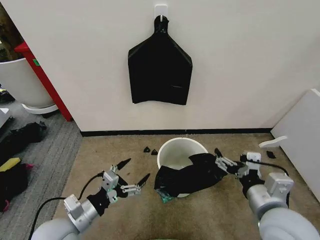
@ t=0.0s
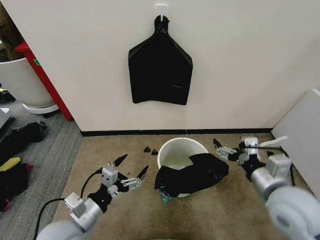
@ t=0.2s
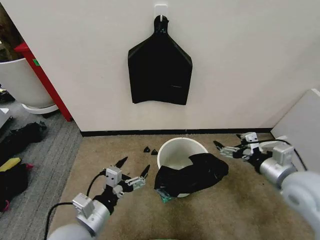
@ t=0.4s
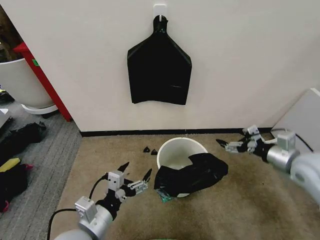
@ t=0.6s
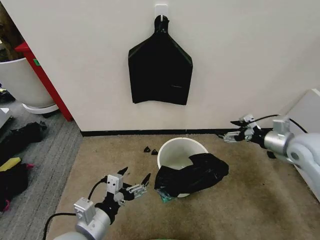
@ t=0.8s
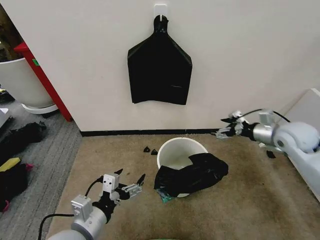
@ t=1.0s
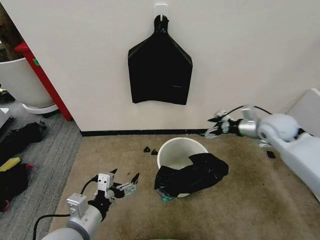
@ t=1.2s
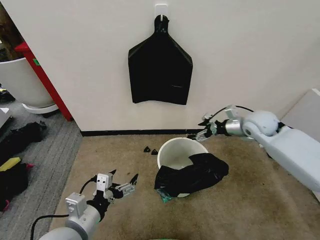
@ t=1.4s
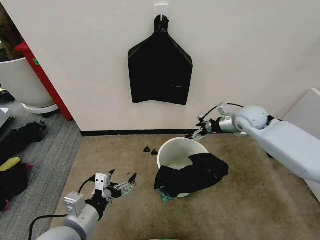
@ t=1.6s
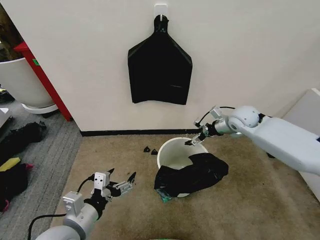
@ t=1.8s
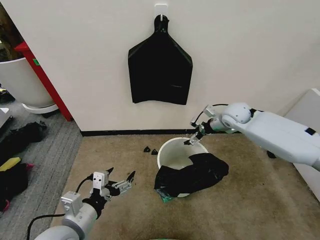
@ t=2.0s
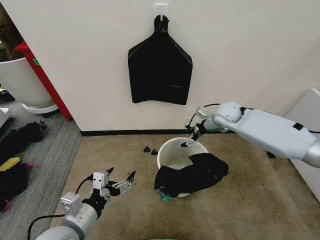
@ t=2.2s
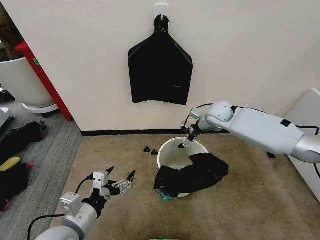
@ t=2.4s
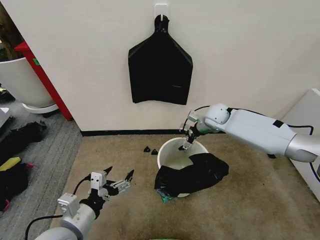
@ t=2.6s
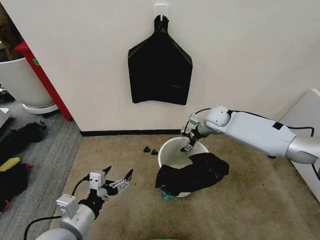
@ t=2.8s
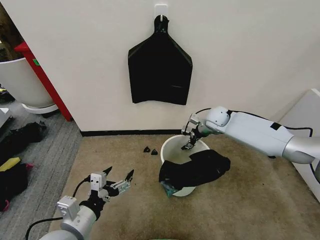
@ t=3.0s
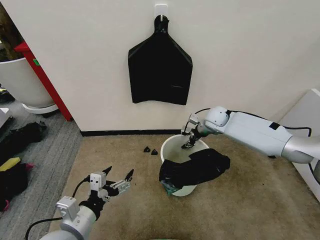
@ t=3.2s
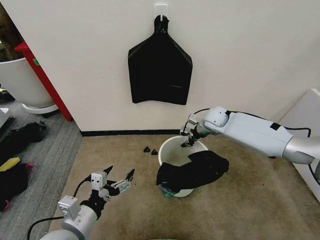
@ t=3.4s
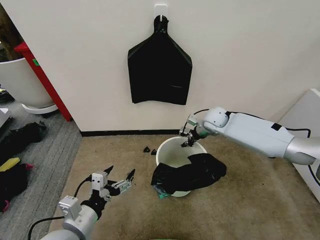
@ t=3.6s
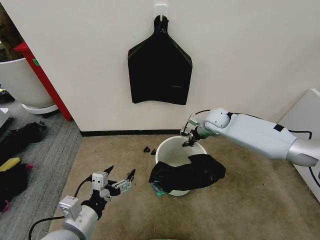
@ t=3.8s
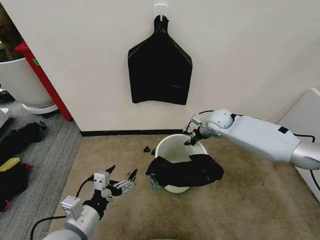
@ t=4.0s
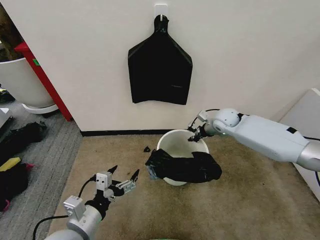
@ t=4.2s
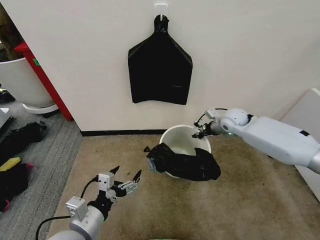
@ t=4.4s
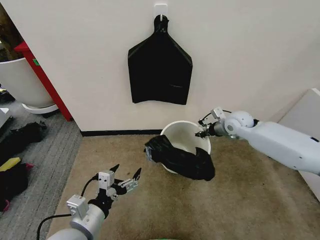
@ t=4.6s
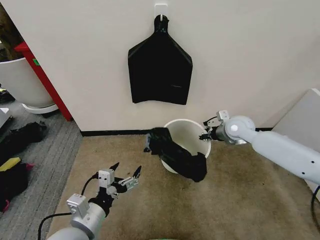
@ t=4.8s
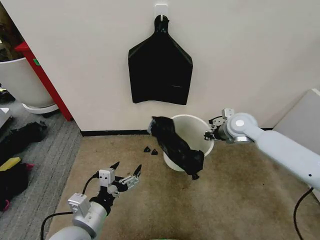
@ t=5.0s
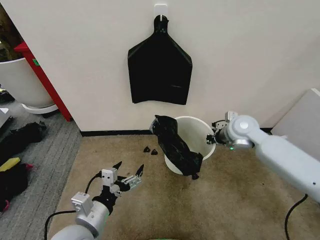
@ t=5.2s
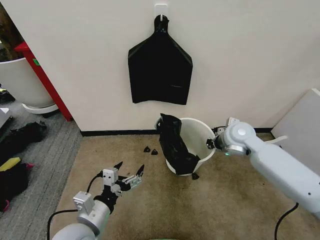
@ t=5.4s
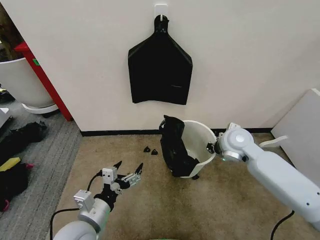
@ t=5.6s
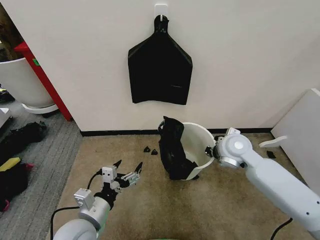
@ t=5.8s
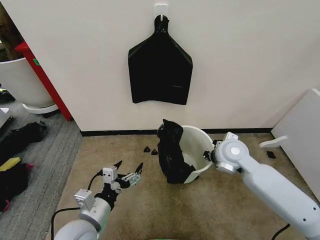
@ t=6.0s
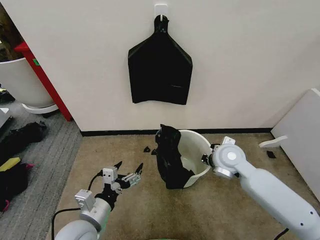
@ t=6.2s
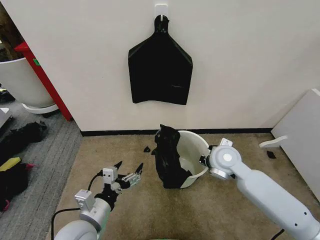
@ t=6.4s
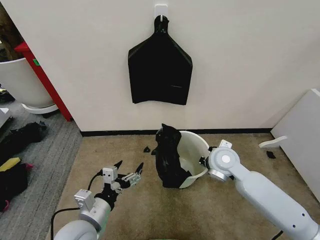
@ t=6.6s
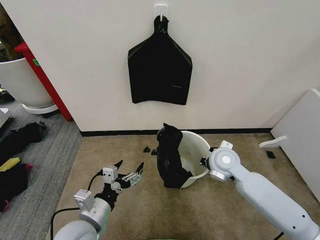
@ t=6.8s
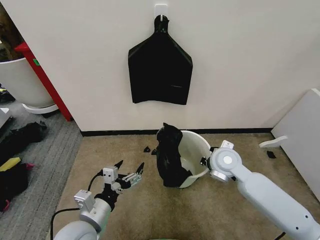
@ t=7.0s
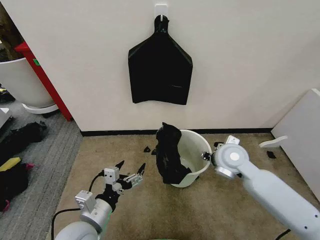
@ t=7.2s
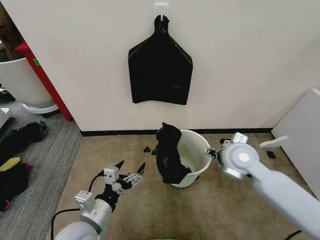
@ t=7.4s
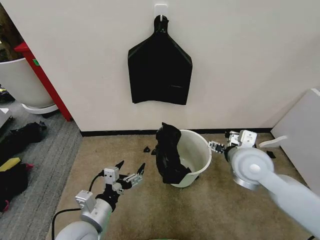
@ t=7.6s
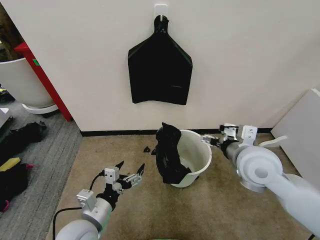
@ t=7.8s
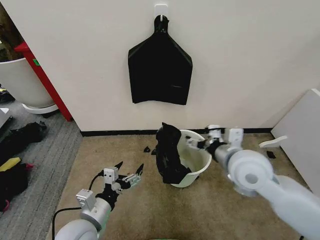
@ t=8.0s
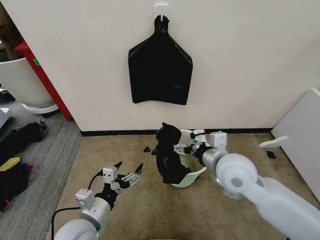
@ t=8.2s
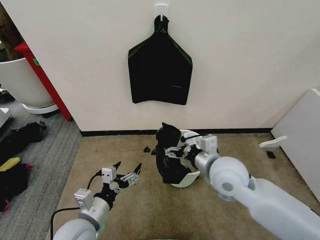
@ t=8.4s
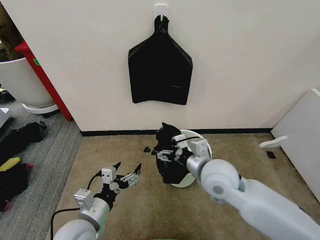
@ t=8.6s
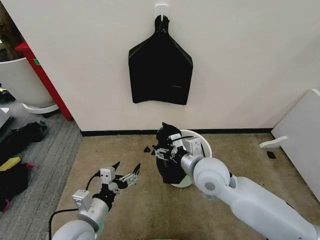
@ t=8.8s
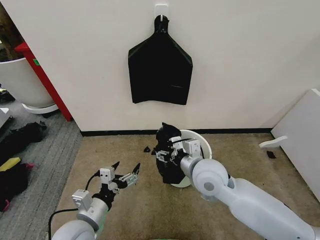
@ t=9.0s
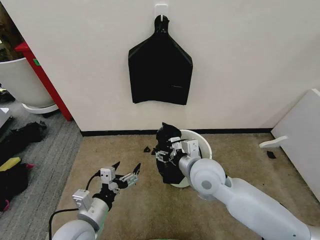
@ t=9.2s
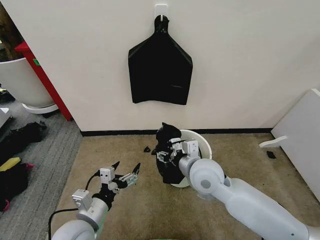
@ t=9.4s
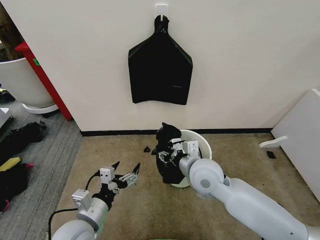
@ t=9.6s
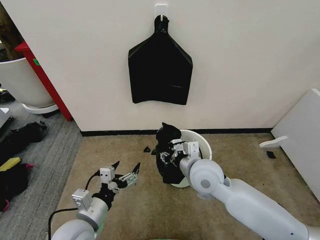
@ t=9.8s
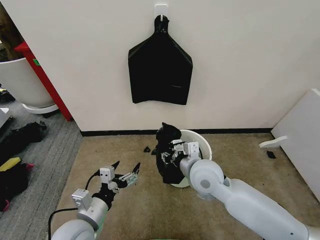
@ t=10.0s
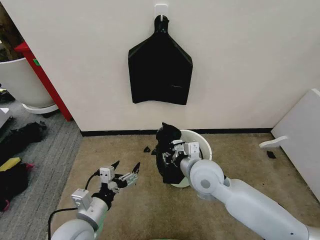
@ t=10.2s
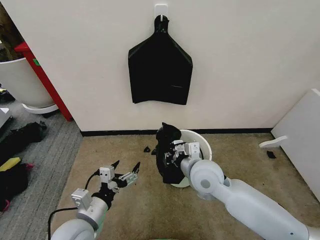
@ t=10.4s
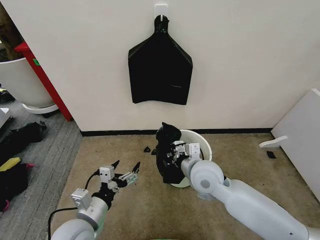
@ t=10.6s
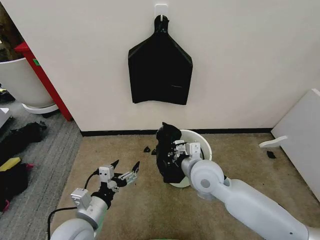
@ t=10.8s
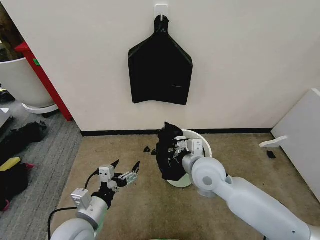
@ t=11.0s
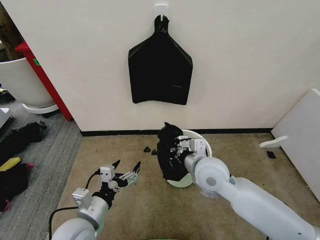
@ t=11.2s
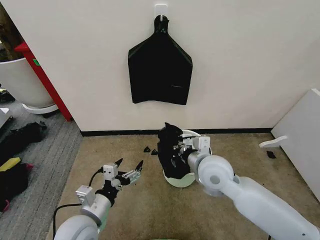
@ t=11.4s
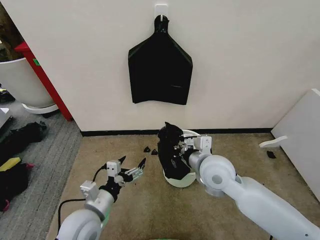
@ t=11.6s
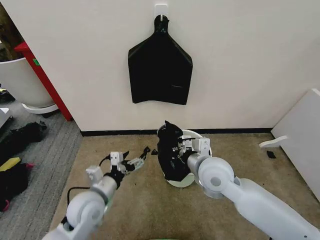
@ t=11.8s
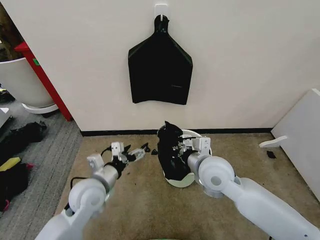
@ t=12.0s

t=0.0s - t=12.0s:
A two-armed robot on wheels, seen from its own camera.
Task of the whole recording: Place the garbage bag over the trash bin.
t=0.0s - t=1.6s: The right gripper heads forward, covering some 35 cm.
t=1.6s - t=3.0s: The right gripper travels to the left, forward and downward by approximately 10 cm, and closes.
t=3.0s - t=4.4s: The right gripper moves to the right, approximately 5 cm, and closes.
t=4.4s - t=6.0s: The right gripper heads backward and to the left, covering some 15 cm.
t=6.0s - t=7.6s: The right gripper goes approximately 5 cm backward, and opens its fingers.
t=7.6s - t=9.0s: The right gripper heads to the left, covering some 10 cm.
t=9.0s - t=10.4s: The right gripper closes up.
t=10.4s - t=12.0s: The left gripper heads forward, covering some 10 cm.

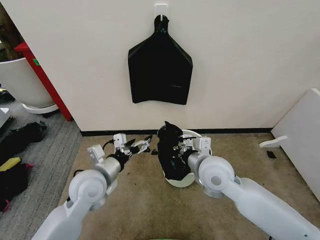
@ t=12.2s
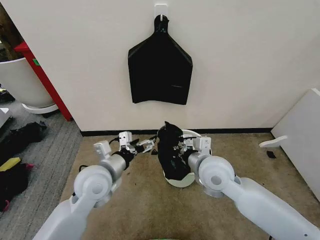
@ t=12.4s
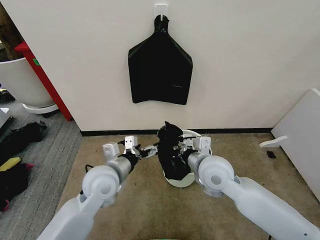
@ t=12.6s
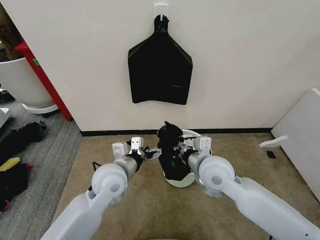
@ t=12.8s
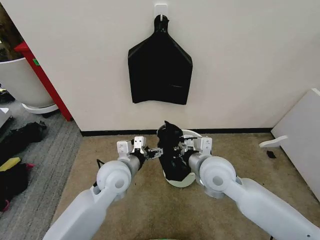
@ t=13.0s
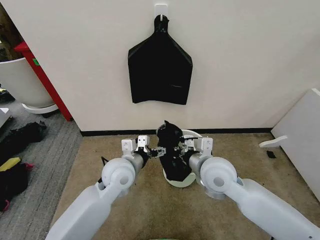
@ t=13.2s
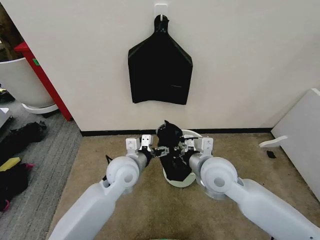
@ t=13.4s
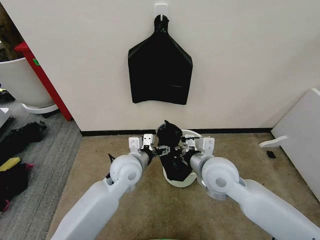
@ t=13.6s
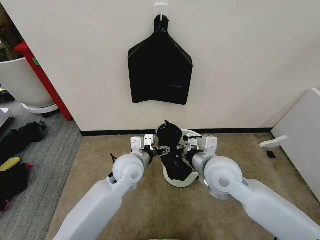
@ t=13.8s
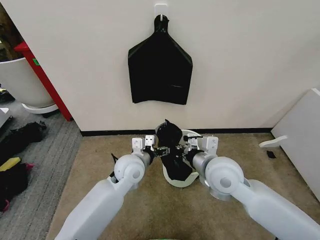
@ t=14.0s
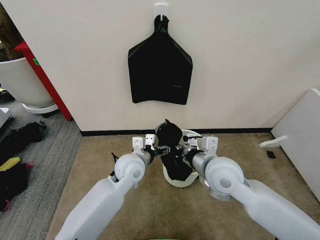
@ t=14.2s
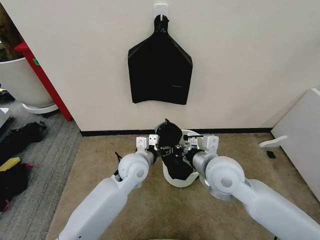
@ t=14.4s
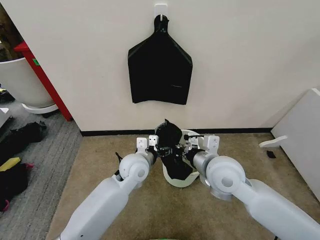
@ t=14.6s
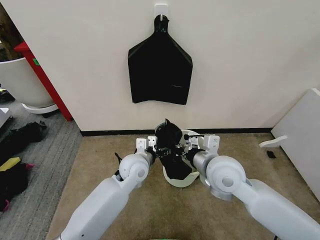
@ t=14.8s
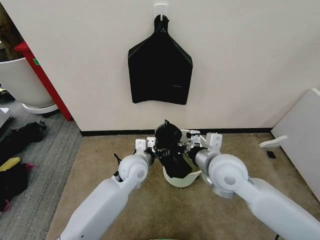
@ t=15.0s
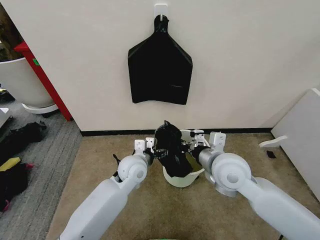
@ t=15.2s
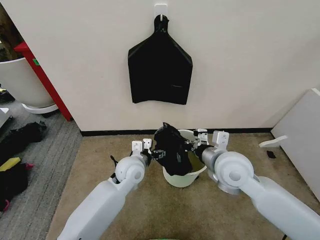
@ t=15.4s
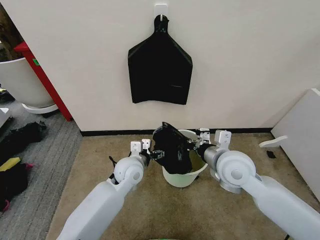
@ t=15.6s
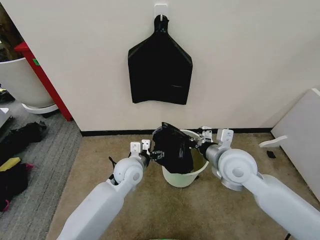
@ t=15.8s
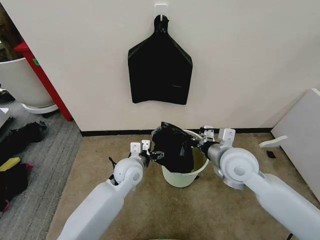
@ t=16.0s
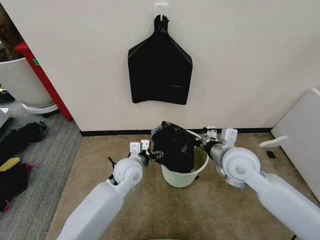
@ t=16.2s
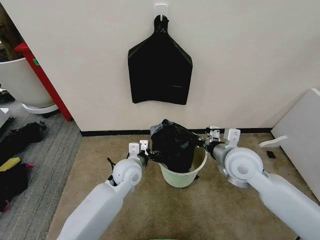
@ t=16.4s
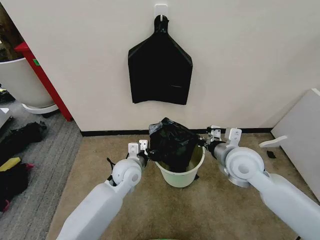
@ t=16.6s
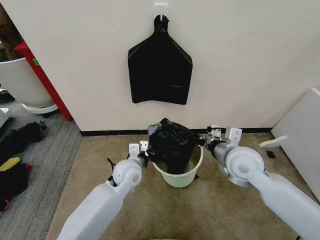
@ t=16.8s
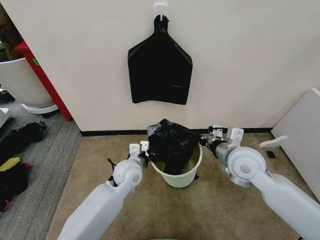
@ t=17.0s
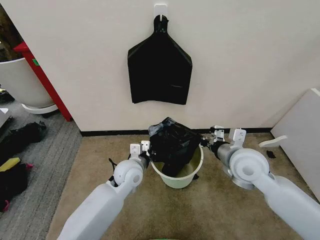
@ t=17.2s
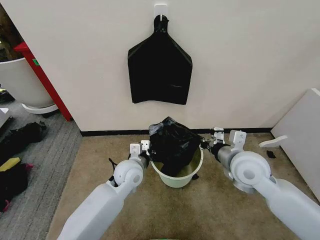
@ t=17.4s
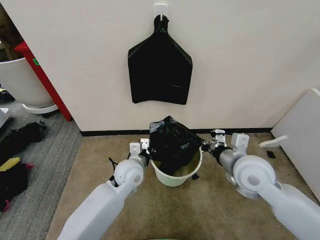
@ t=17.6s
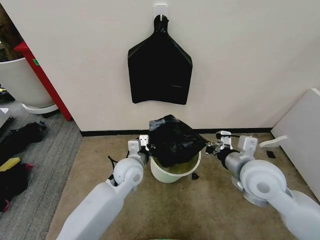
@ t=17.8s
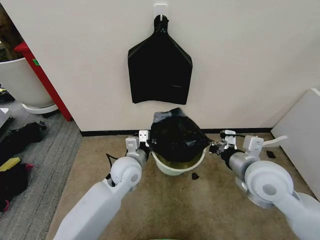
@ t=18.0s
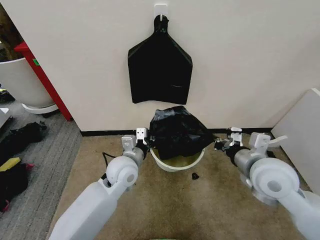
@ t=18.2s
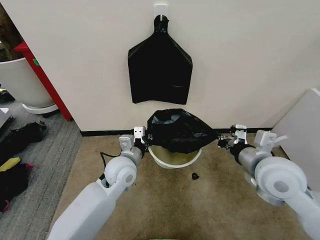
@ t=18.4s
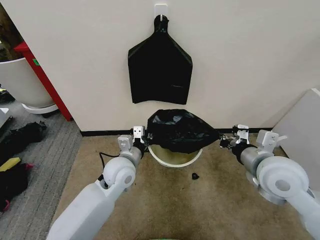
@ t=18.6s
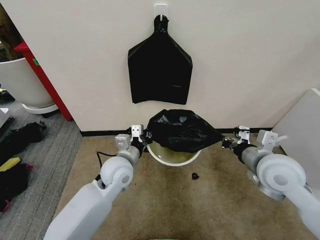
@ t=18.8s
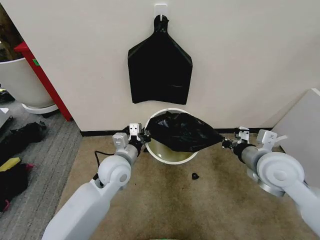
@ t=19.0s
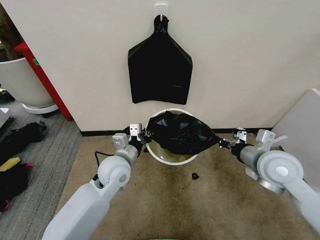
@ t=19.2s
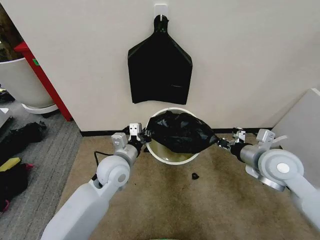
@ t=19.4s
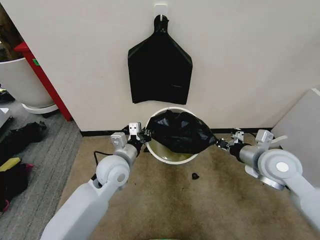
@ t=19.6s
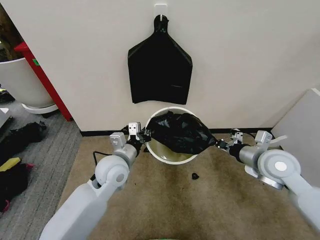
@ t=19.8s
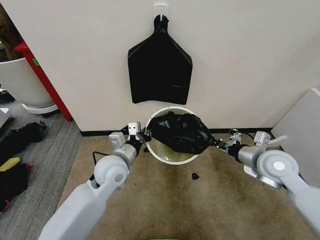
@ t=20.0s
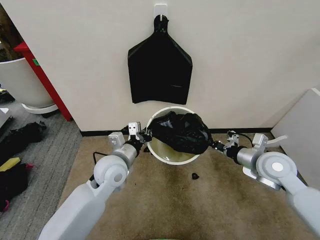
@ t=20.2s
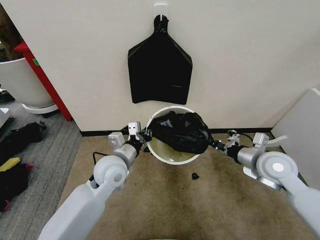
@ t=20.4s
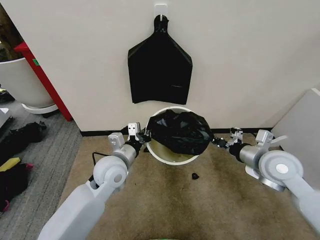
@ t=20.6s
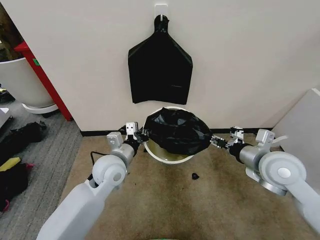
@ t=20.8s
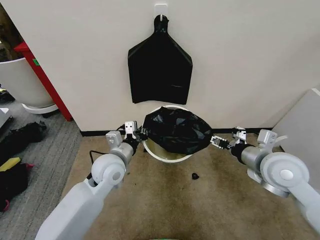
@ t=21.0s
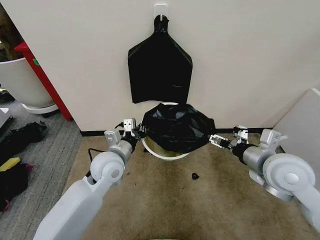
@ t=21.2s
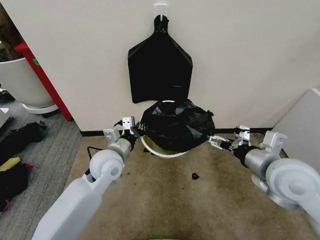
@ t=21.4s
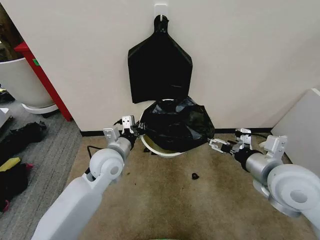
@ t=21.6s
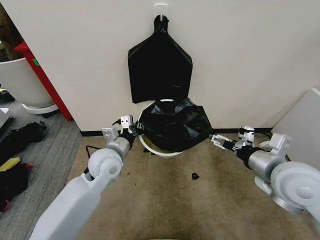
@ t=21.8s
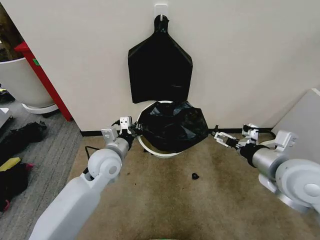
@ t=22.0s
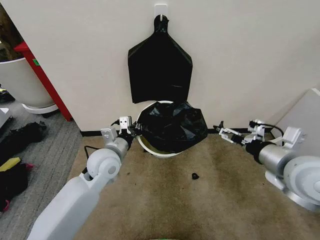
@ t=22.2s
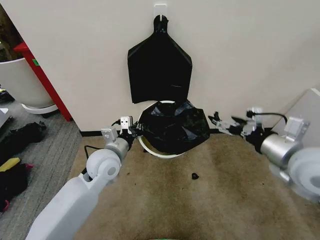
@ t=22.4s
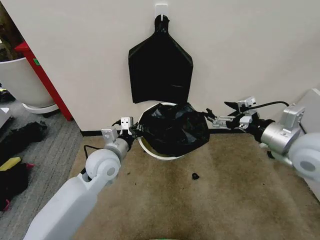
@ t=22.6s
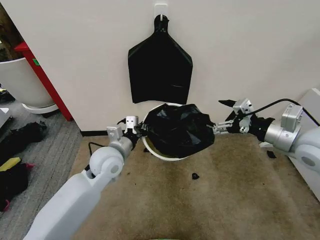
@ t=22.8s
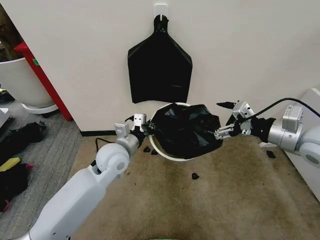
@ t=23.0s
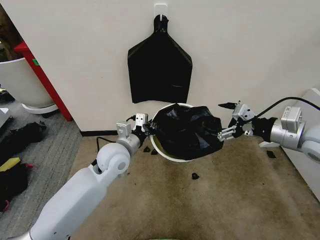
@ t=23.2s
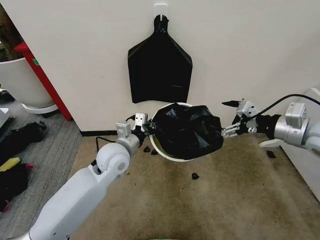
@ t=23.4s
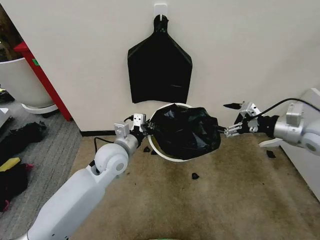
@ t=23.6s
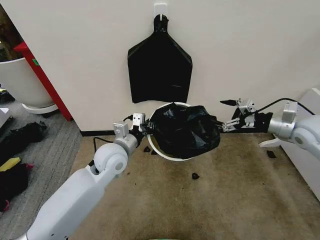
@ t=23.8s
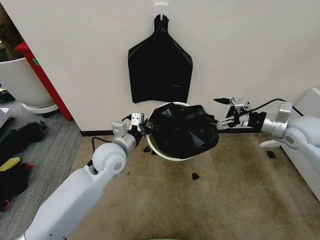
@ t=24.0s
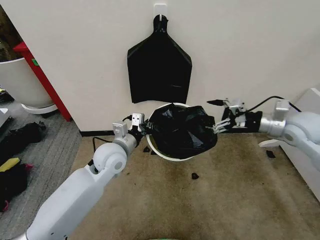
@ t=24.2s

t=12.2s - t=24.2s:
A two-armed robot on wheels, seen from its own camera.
Task of the whole recording: Place the garbage bag over the trash bin.
t=12.2s - t=13.8s: The left gripper heads to the right and forward, covering some 10 cm.
t=13.8s - t=15.2s: There are only small adjustments of the grippers.
t=15.2s - t=16.6s: The left gripper closes; the right gripper moves roughly 5 cm.
t=16.6s - t=18.2s: The left gripper closes its fingers; the right gripper heads backward, covering roughly 5 cm.
t=18.2s - t=19.8s: The right gripper moves to the right and forward, some 10 cm.
t=19.8s - t=21.2s: The right gripper moves about 5 cm, and opens up.
t=21.2s - t=22.6s: The right gripper is displaced upward by some 5 cm.
t=22.6s - t=24.2s: The right gripper heads forward and to the right, covering approximately 10 cm.
